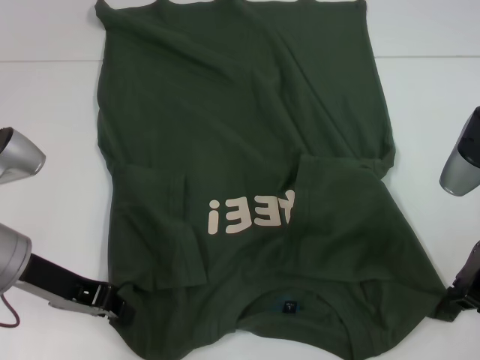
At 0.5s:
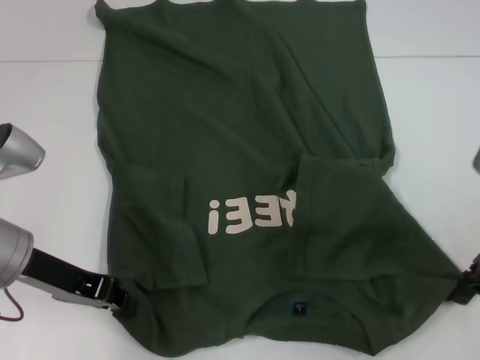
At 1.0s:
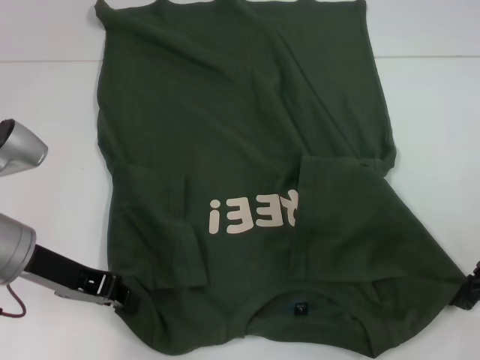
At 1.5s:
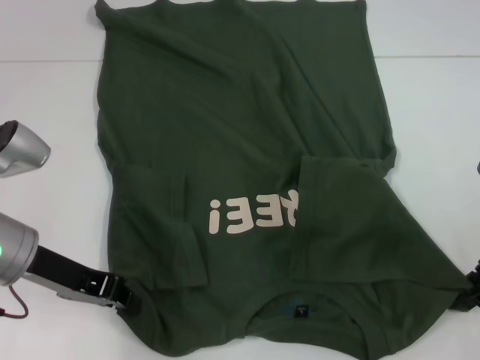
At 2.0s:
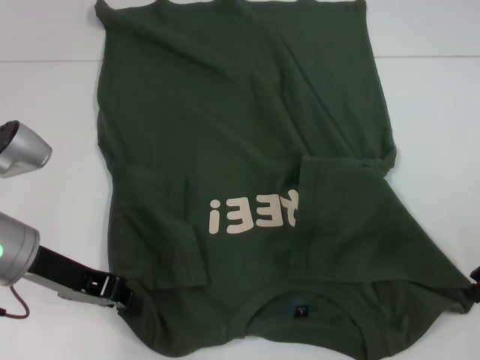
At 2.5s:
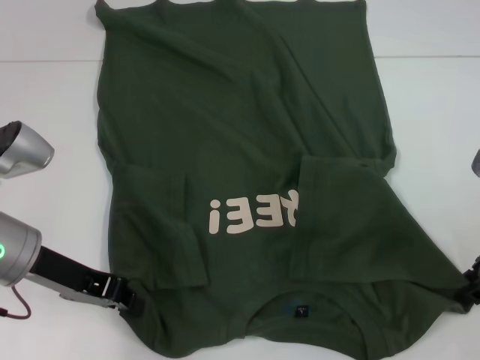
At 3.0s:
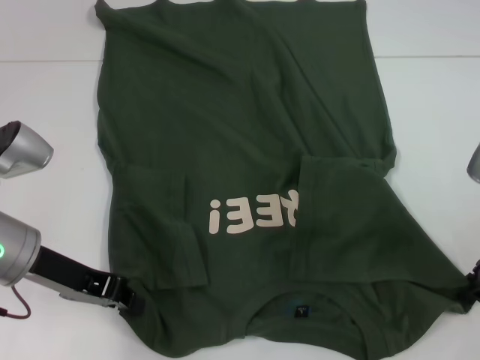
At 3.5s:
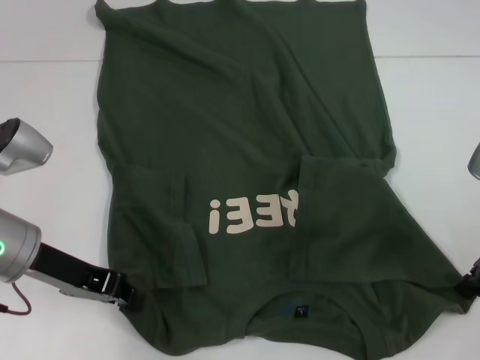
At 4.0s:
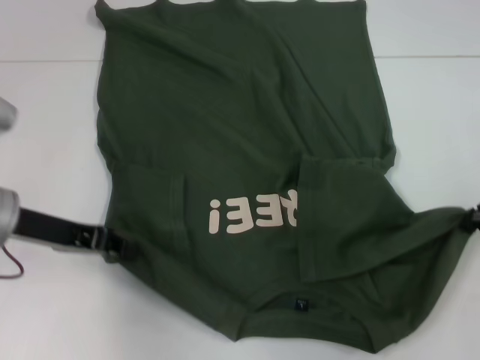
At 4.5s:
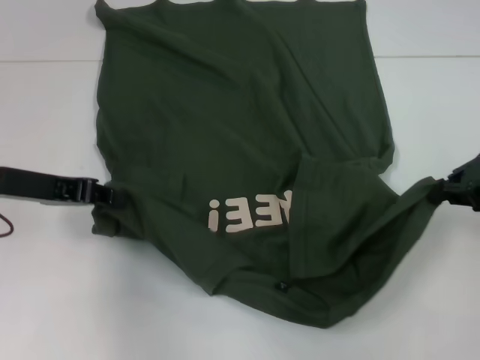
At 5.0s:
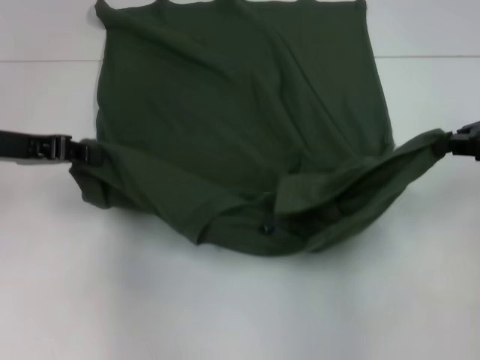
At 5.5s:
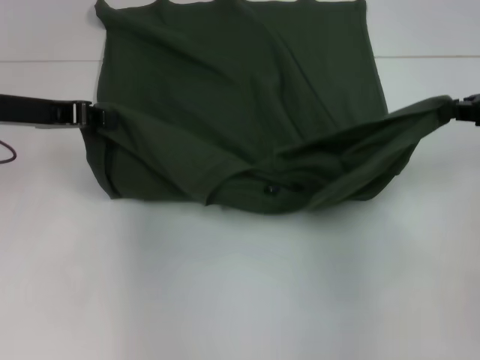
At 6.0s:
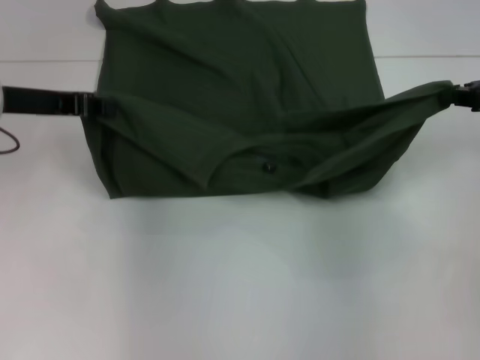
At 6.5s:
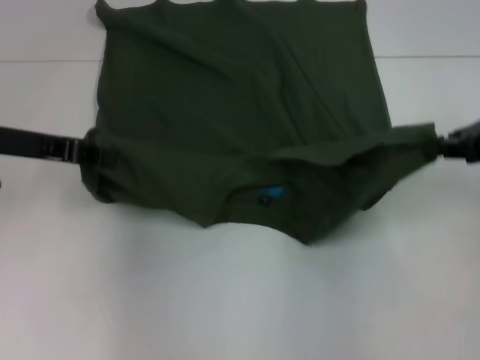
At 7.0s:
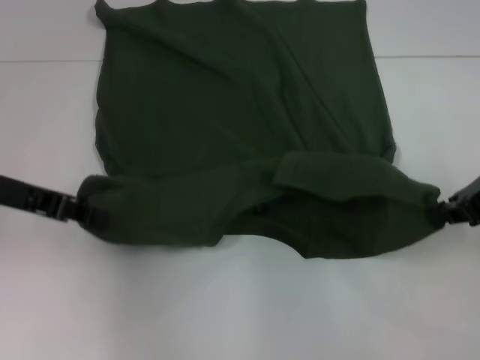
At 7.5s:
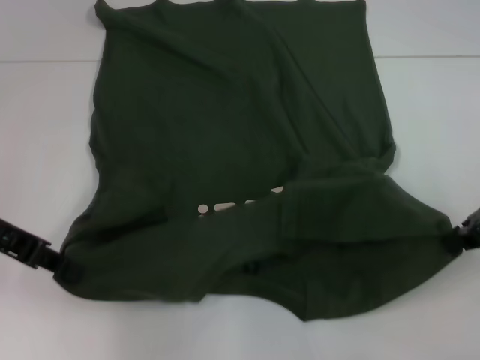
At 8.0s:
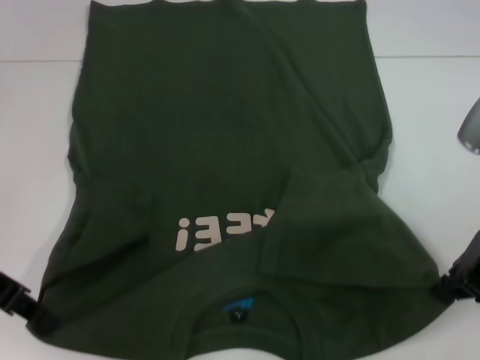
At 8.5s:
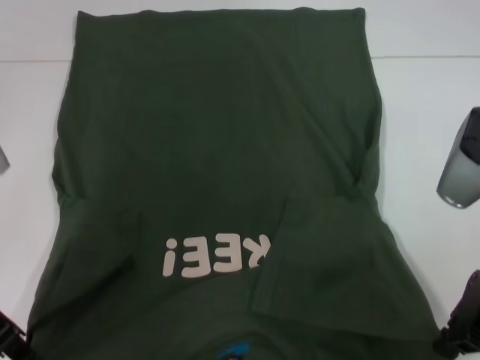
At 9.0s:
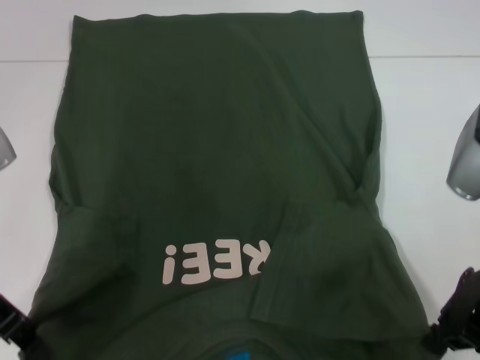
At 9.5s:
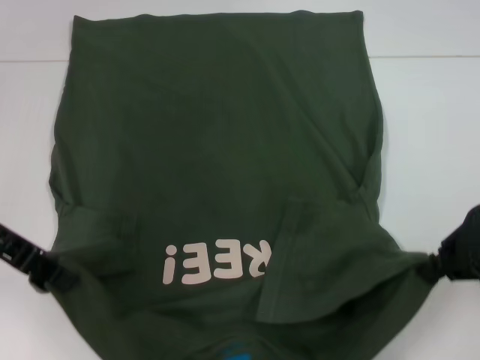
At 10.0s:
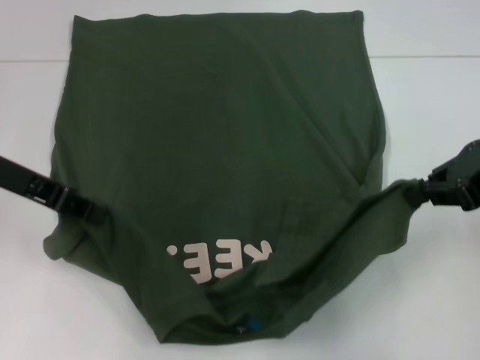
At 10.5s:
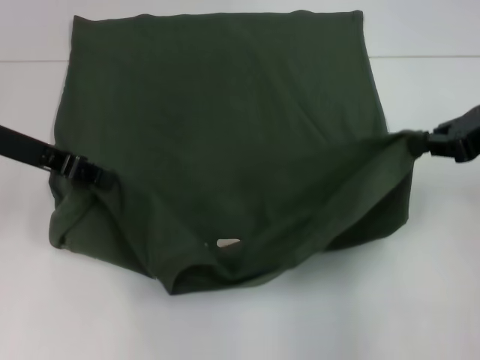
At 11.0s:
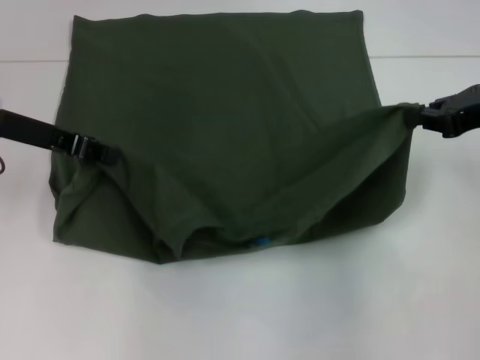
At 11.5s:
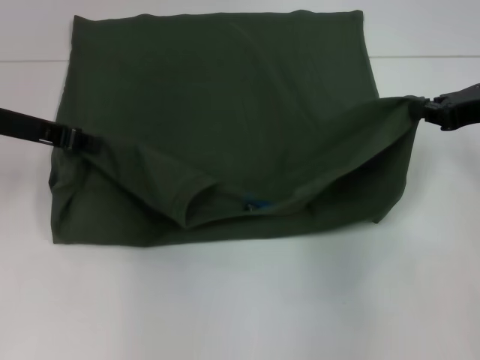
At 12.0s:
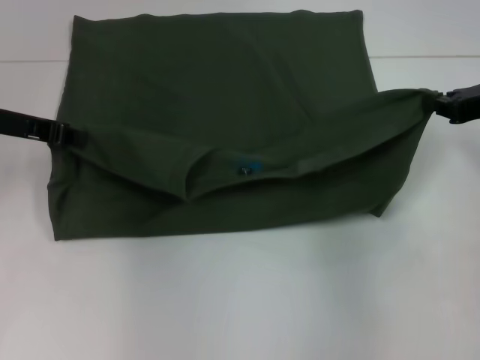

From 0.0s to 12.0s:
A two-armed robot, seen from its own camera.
From 0.0s to 2.0s: The grippers make only small movements.
From 2.0s to 4.0s: There are only small adjustments of the grippers.
From 4.0s to 6.0s: The left gripper heads forward, covering some 10 cm; the right gripper shifts by approximately 5 cm.
From 6.0s to 8.0s: The left gripper heads backward, covering approximately 10 cm. The right gripper goes some 10 cm to the left and backward.
From 8.0s to 10.0s: The left gripper ends up some 5 cm from where it was.
From 10.0s to 12.0s: The right gripper goes some 5 cm downward and forward.

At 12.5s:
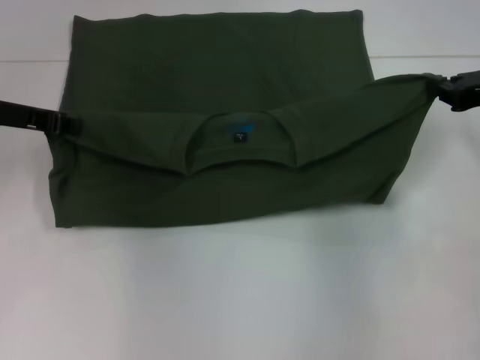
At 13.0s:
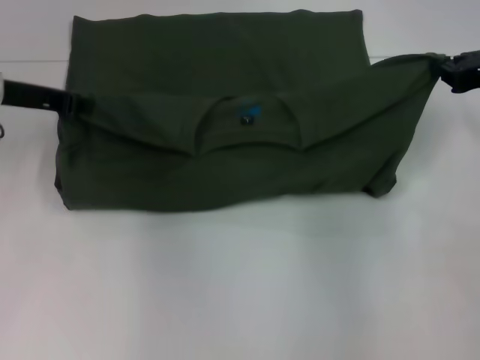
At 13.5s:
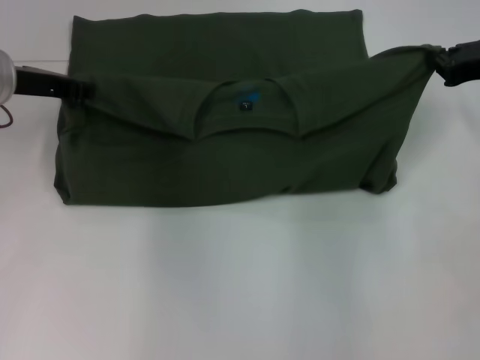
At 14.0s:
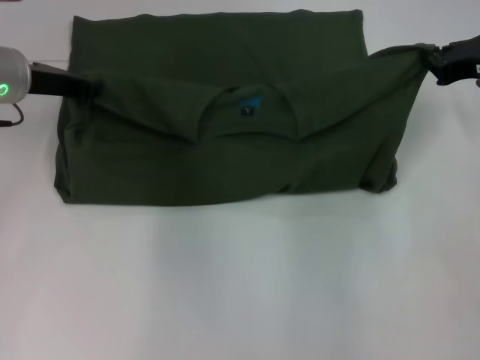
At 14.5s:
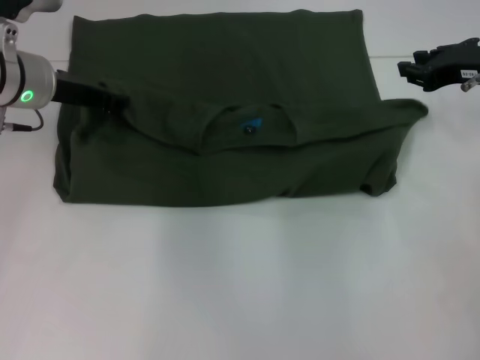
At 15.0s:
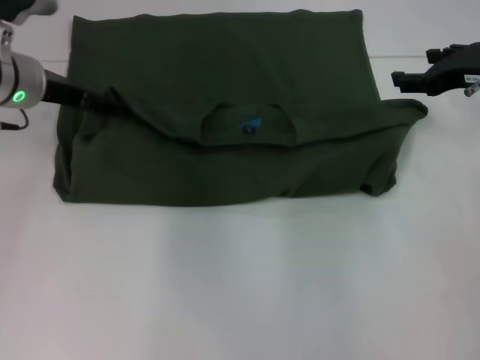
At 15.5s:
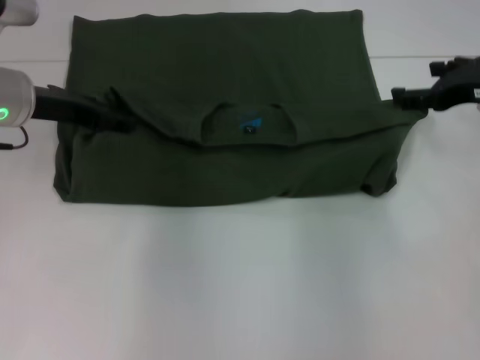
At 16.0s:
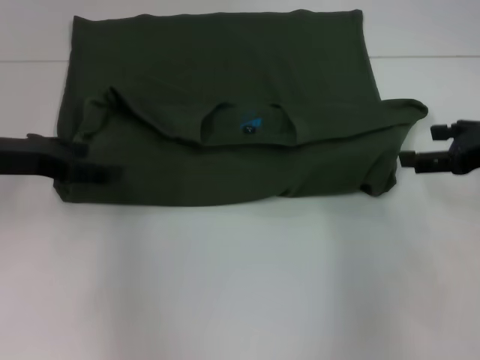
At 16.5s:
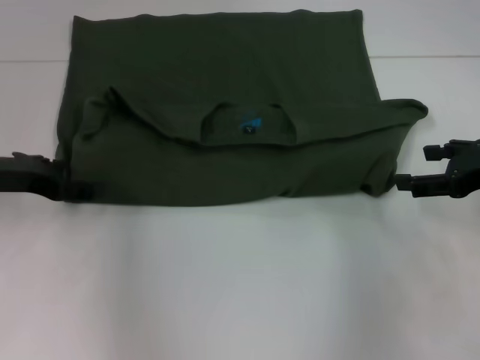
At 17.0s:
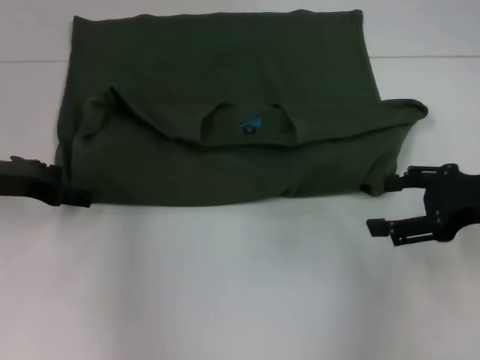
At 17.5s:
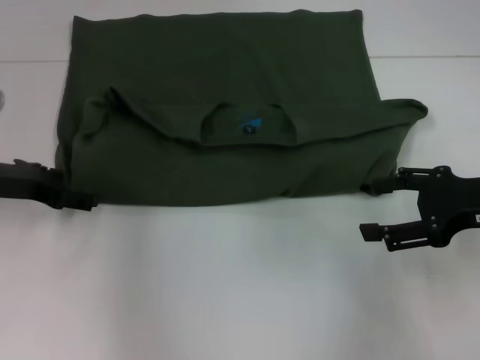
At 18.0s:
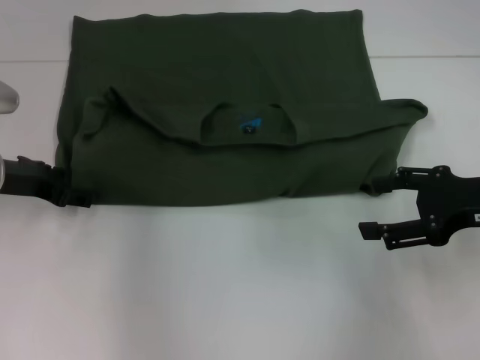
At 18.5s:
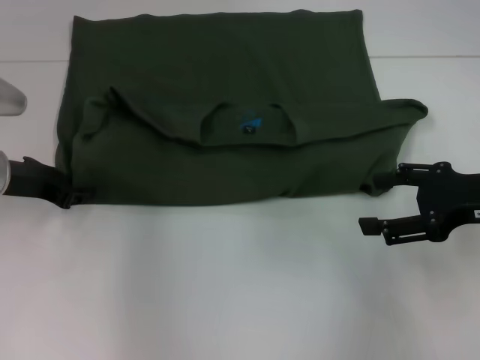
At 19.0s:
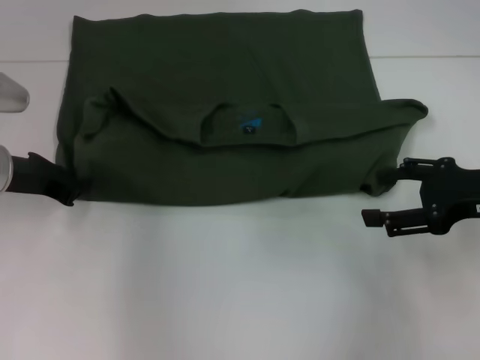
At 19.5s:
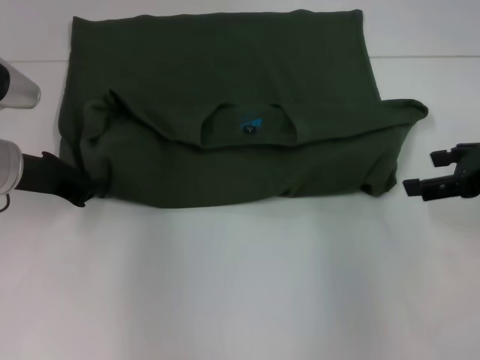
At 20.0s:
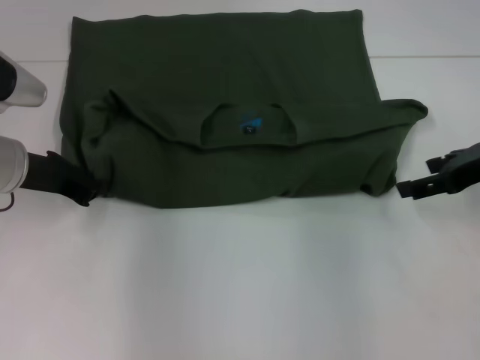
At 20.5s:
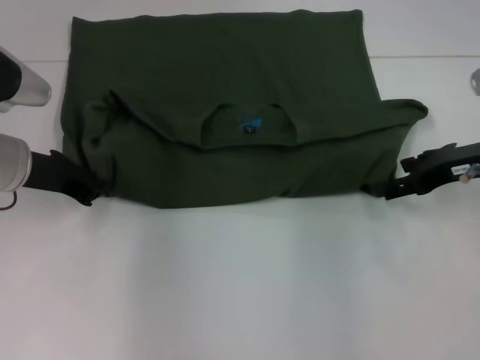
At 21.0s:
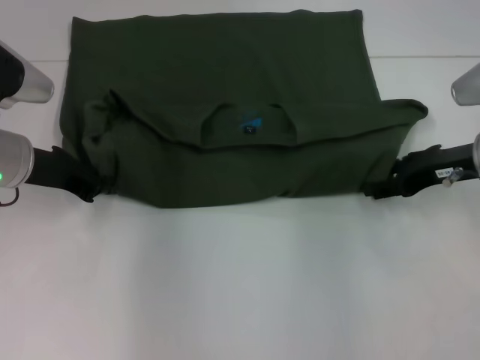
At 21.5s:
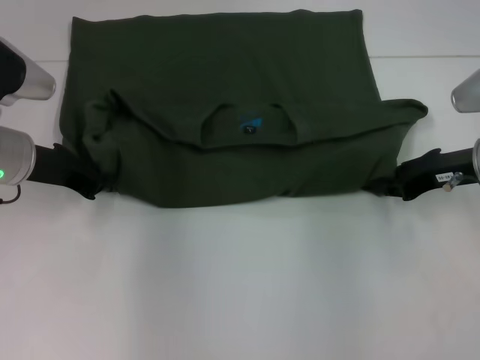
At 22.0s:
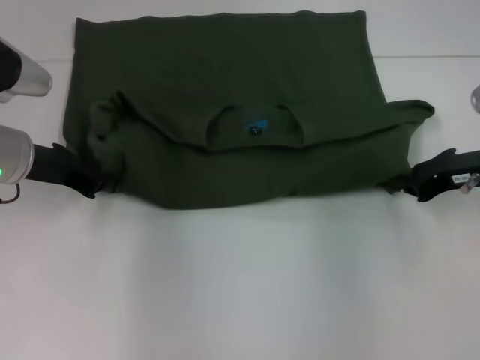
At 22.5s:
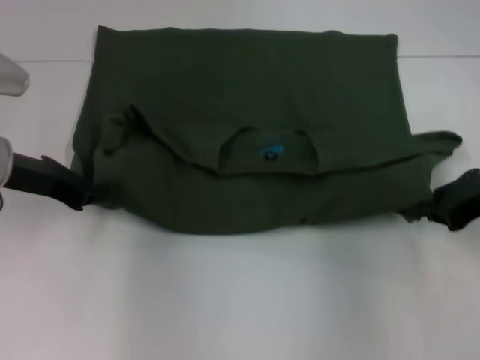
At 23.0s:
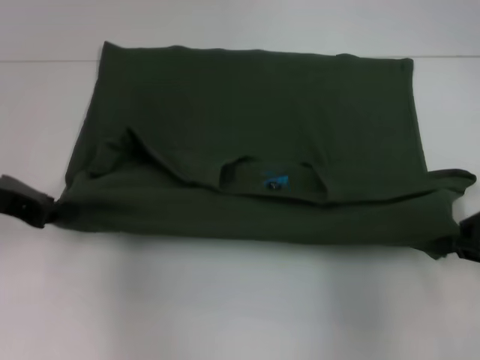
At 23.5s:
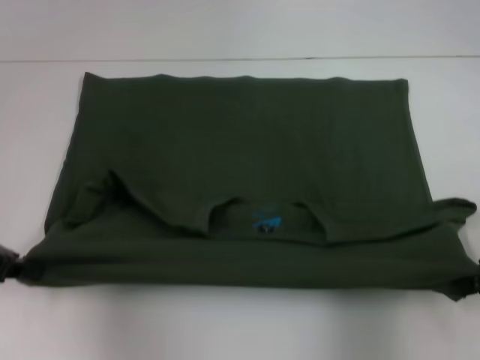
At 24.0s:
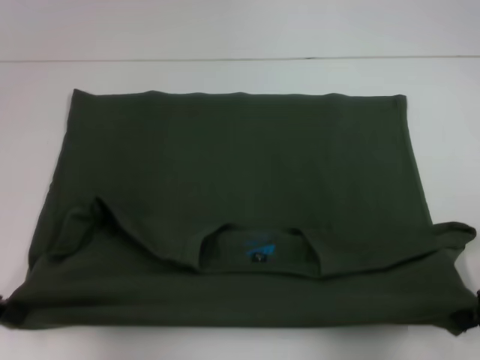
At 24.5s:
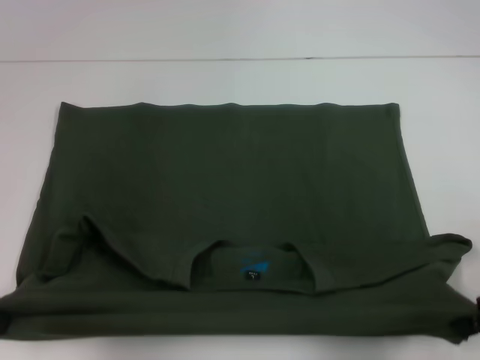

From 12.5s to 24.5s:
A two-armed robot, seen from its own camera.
Step, from 12.5s to 15.5s: Fold the clothes with your left hand.
Step, from 12.5s to 15.5s: Fold the clothes with your right hand.
Step, from 16.0s to 23.5s: Pull the clothes with your left hand.
Step, from 16.0s to 23.5s: Pull the clothes with your right hand.
From 12.5s to 14.5s: The left gripper heads to the right, covering approximately 5 cm.
From 14.5s to 16.5s: The right gripper moves backward, approximately 10 cm, and opens. Meanwhile the left gripper moves backward and to the left, approximately 10 cm, and opens its fingers.
From 18.5s to 20.5s: The left gripper closes its fingers. Meanwhile the right gripper moves forward, about 5 cm.
From 20.5s to 22.5s: The right gripper ends up about 5 cm from where it was, and closes its fingers.
From 22.5s to 24.5s: The left gripper heads backward and to the left, covering approximately 10 cm; the right gripper heads backward, covering roughly 10 cm.

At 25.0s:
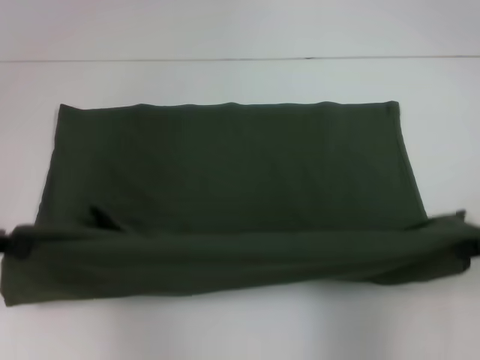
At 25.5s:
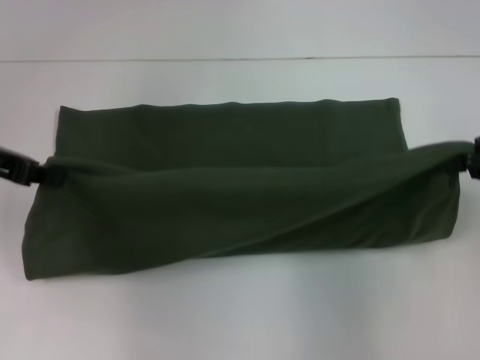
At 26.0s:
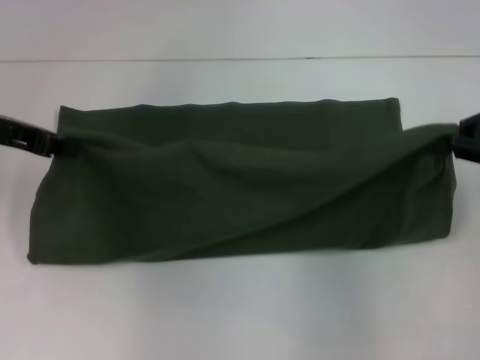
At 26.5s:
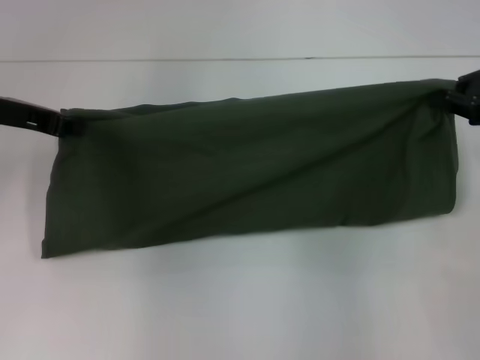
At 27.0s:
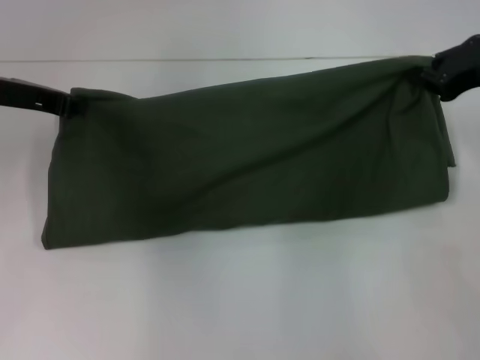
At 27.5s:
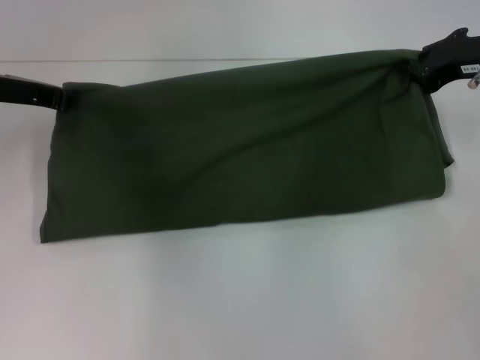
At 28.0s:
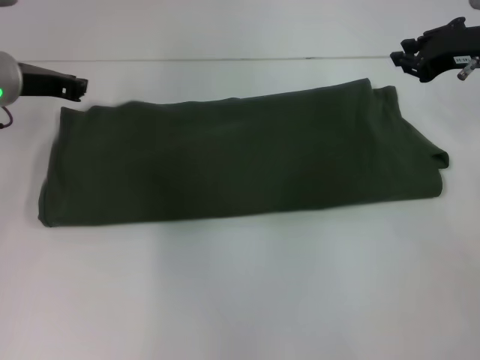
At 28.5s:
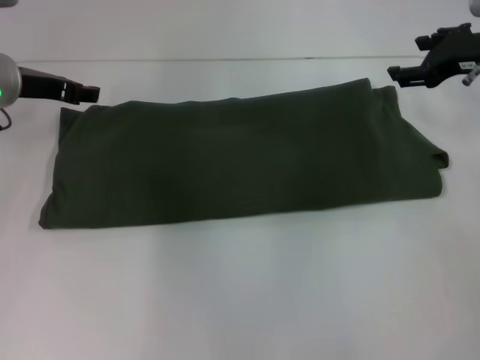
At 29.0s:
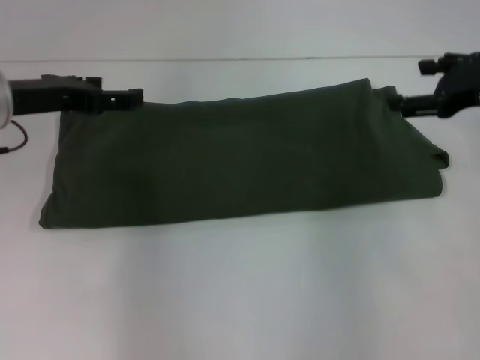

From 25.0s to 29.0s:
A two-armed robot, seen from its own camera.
Step, from 25.0s to 28.0s: Fold the clothes with your right hand.
From 25.0s to 27.0s: The grippers both shift forward by approximately 10 cm.
From 27.0s to 29.0s: The right gripper opens up; the left gripper opens.
